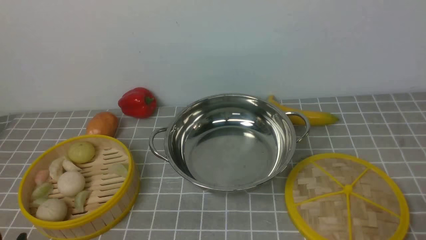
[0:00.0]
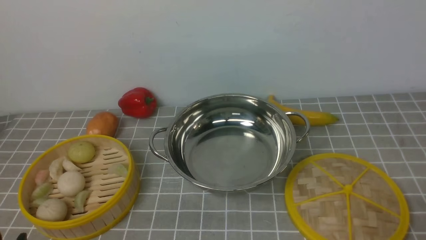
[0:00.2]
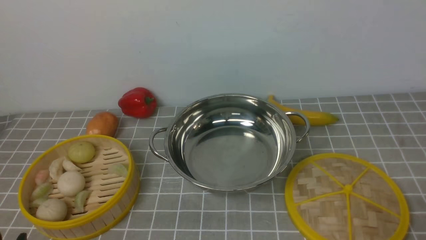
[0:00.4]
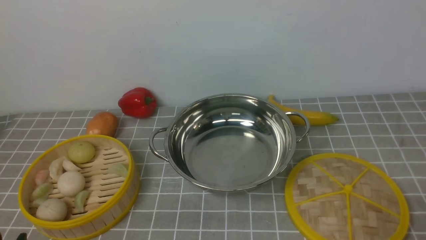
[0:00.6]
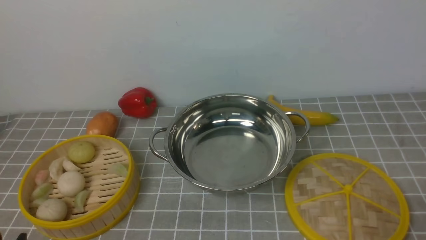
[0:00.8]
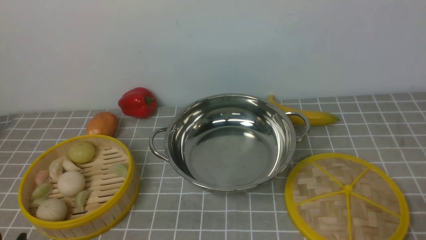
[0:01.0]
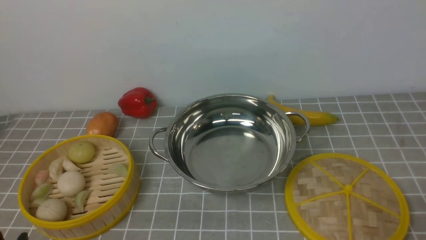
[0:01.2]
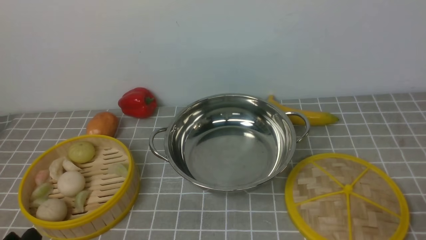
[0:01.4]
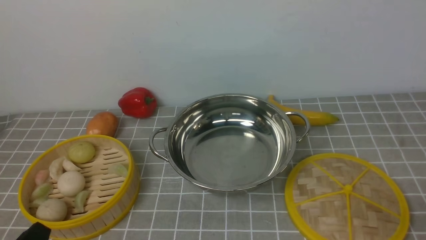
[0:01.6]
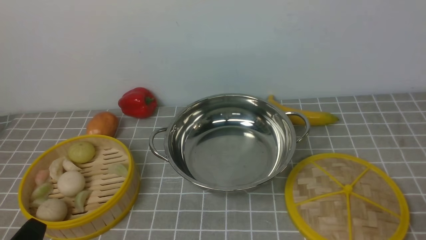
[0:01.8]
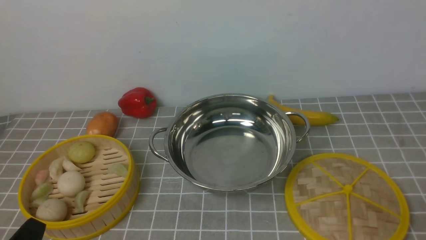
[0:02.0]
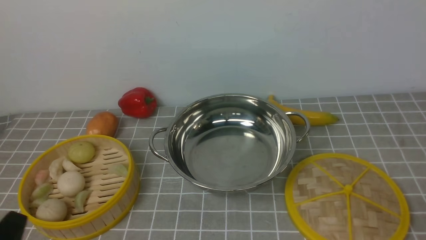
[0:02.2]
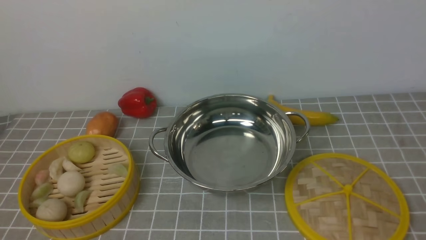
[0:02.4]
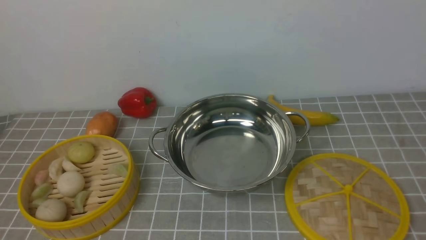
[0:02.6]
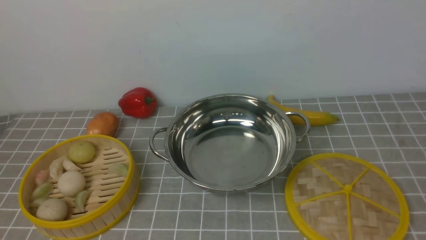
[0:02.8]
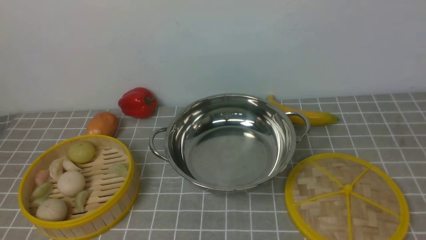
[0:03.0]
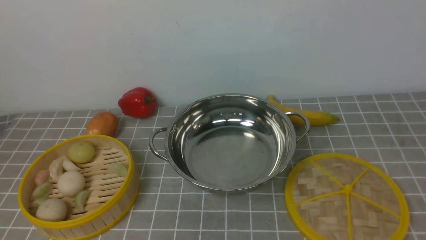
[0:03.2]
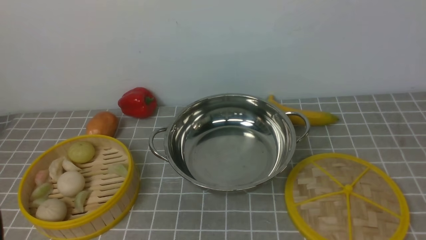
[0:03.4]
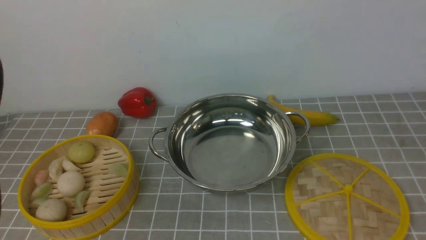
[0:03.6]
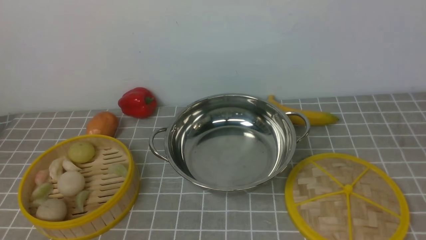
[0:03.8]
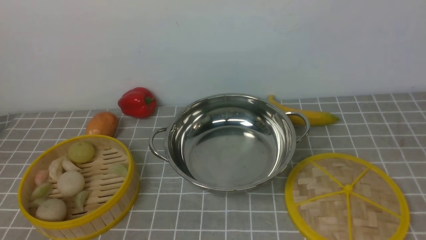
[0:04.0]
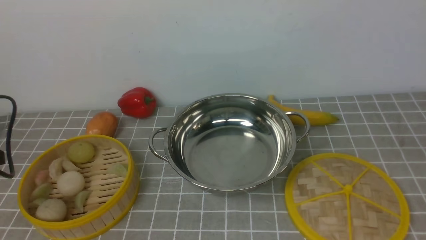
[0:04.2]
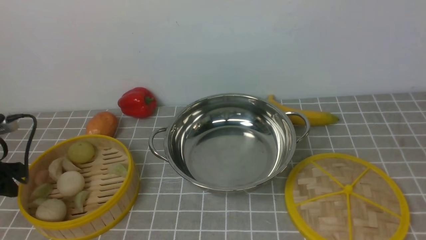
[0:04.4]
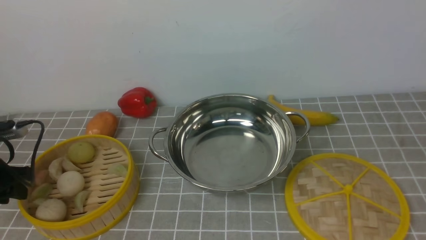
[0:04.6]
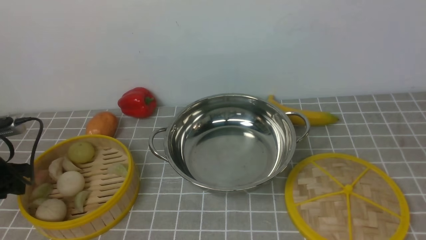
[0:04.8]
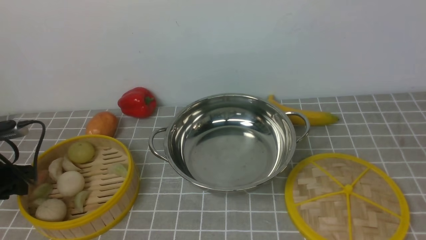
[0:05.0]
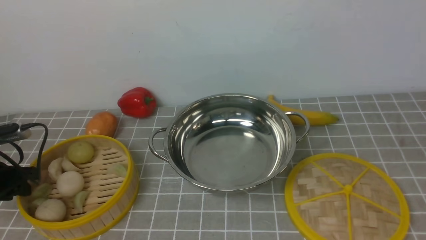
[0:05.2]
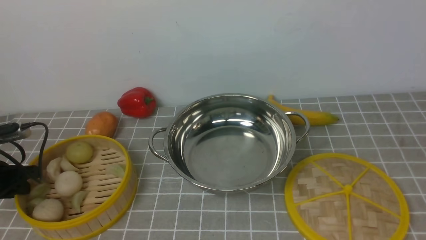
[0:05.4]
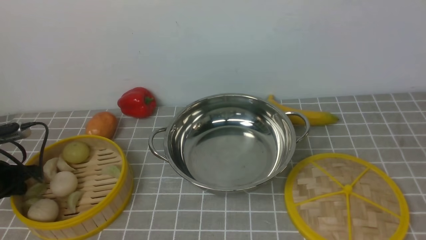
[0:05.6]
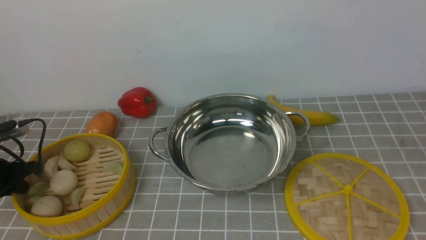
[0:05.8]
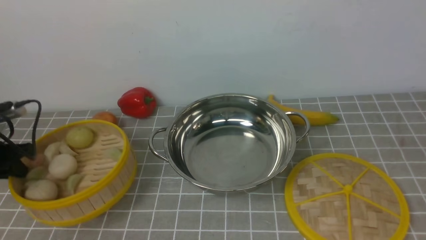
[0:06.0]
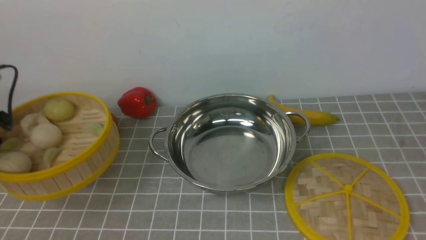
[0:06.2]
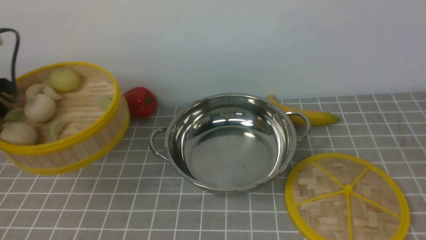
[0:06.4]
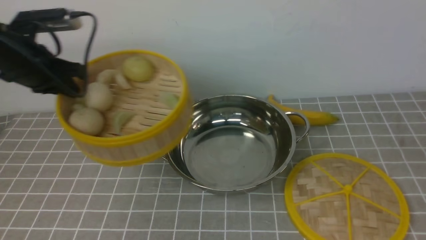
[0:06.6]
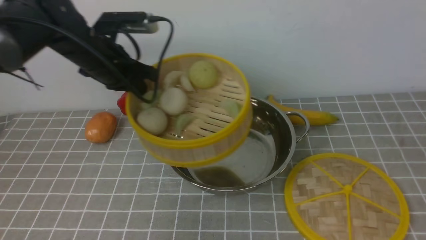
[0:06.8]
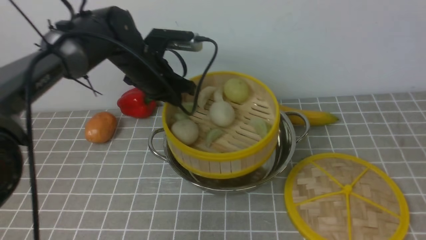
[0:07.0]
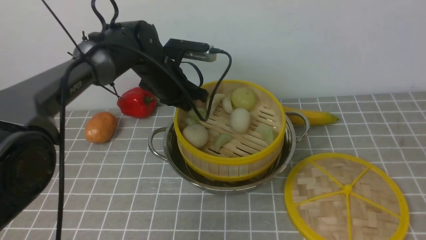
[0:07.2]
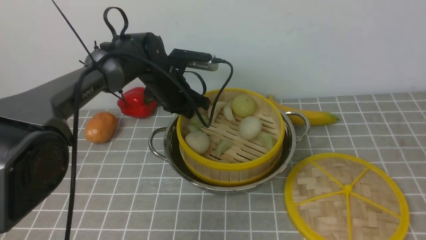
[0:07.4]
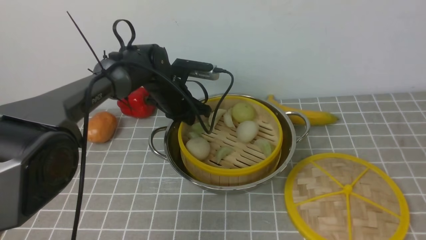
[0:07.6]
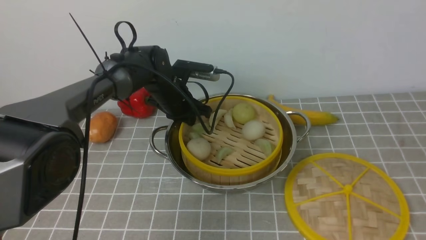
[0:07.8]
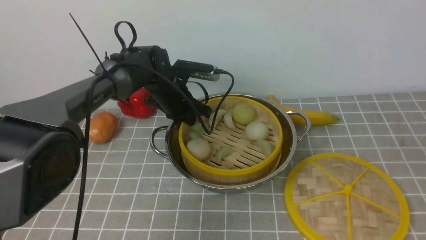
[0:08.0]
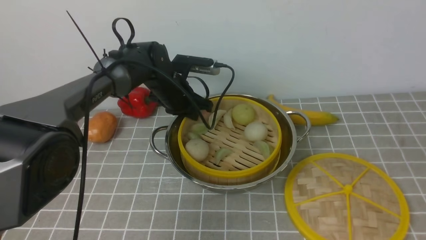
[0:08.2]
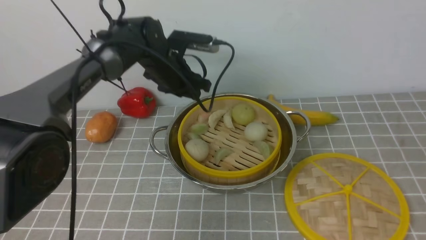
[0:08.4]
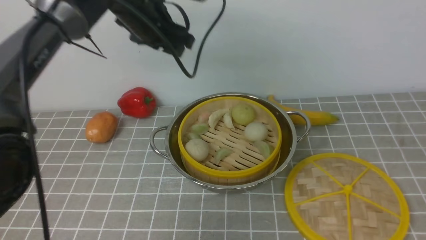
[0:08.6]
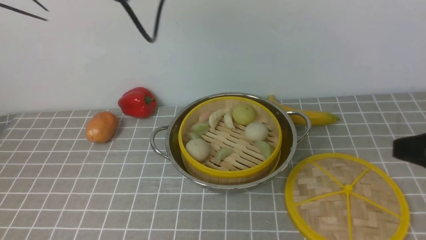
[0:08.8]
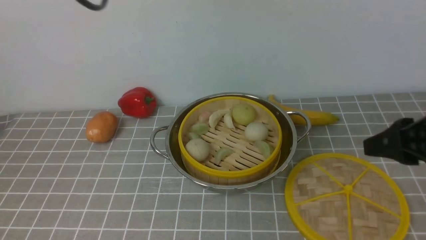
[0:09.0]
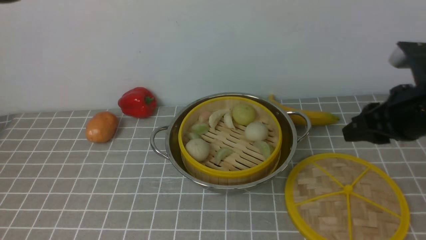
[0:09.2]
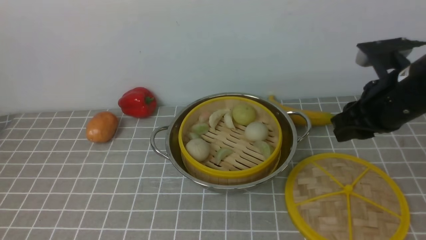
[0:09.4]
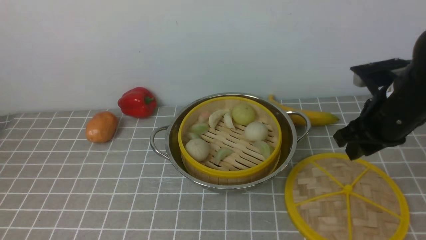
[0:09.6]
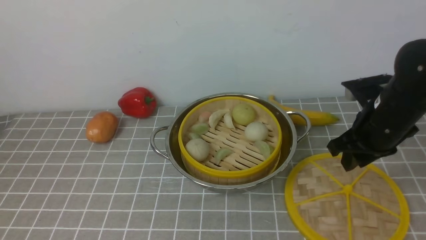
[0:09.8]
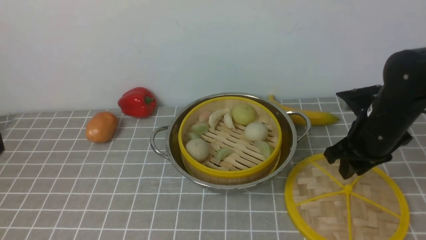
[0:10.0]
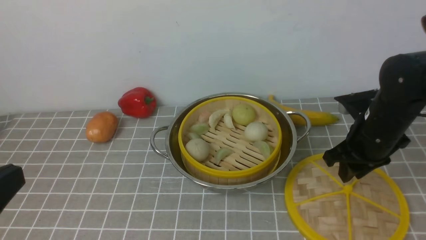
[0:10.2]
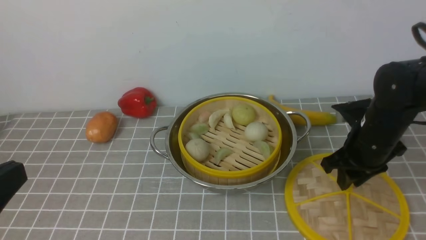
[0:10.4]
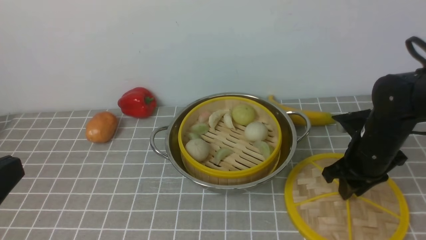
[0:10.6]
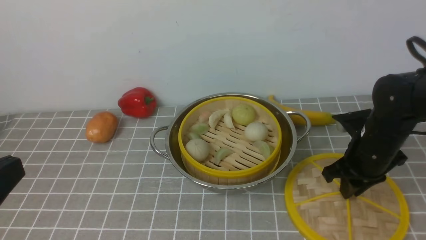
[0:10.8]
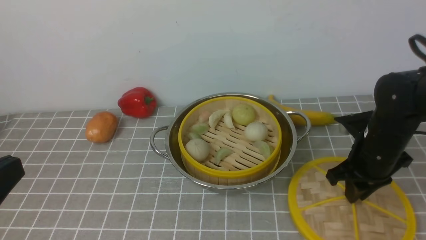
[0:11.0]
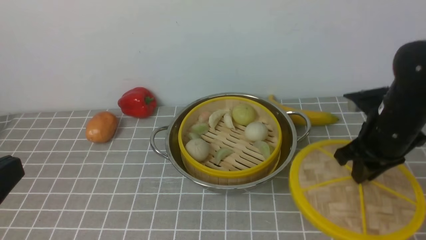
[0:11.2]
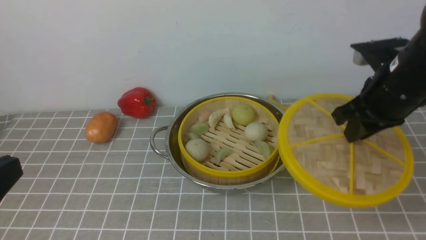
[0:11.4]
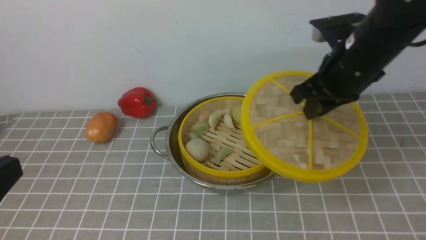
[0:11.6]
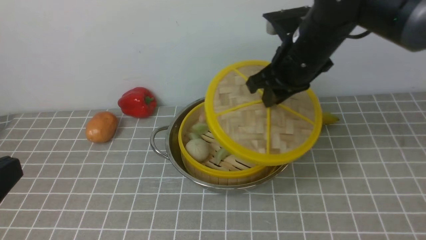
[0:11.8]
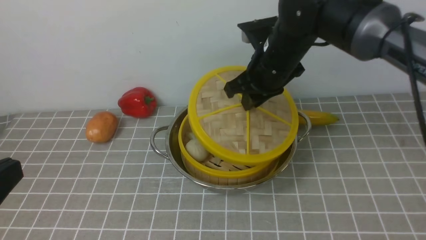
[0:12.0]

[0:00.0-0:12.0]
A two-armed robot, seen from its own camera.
Task of the whole recording: place the steamer in the pot on the grey tablecloth, and put the lid on the steamer.
Step, 0:00.0 to 0:05.8: use the left arm to lift the steamer closest to it.
Step, 0:06.0 to 0:08.2: use the left arm to put the steamer into the iron steamer pot in the middle.
Step, 0:08.4 to 0:11.0: use the right arm to lift the lid of the steamer.
0:03.0 to 0:04.4: The left gripper heads forward, downward and to the left, covering about 30 cm.
0:04.4 to 0:06.0: The left gripper goes some 5 cm forward, and closes up.
0:06.0 to 0:07.6: The left gripper goes roughly 35 cm to the right and forward.
0:07.6 to 0:09.0: The left gripper goes roughly 35 cm upward and backward, and opens, while the right gripper moves forward, approximately 10 cm.
0:09.0 to 0:10.4: The right gripper goes some 15 cm downward and forward; the left gripper heads backward and downward, covering some 30 cm, and closes its fingers.
0:10.4 to 0:12.0: The right gripper heads to the left, upward and forward, covering about 20 cm.

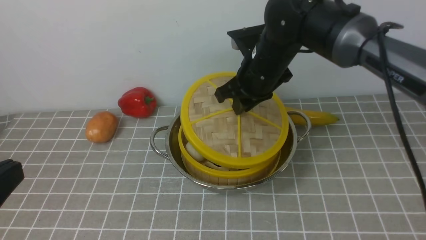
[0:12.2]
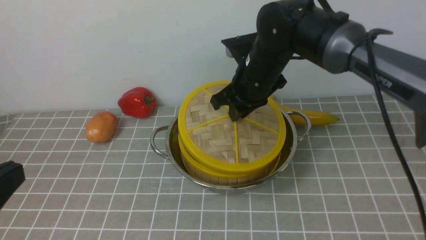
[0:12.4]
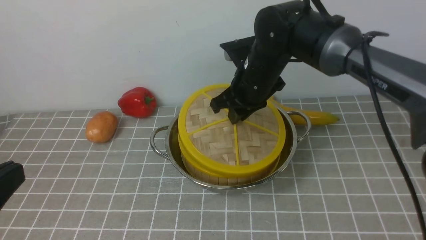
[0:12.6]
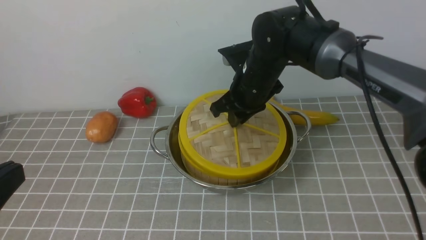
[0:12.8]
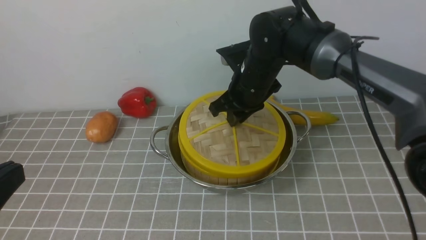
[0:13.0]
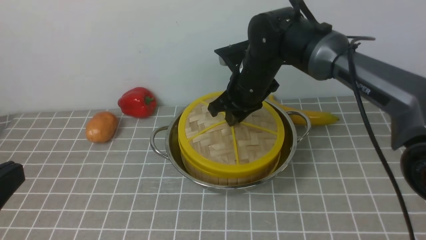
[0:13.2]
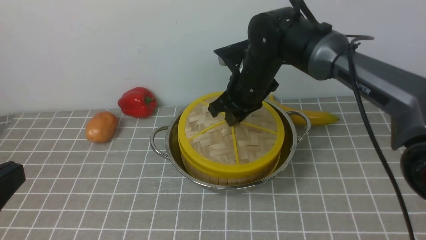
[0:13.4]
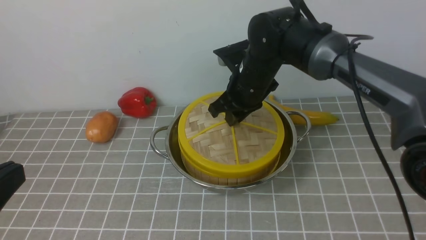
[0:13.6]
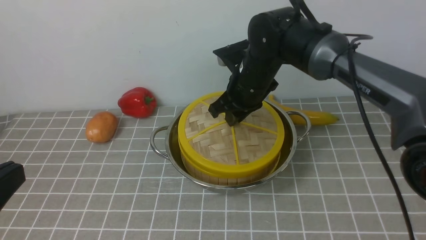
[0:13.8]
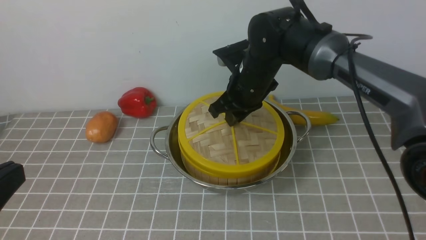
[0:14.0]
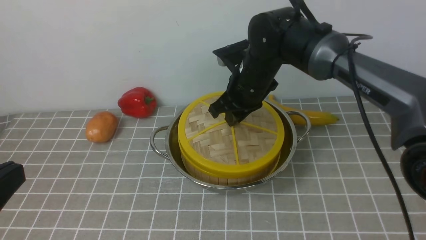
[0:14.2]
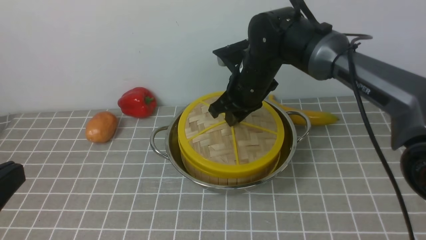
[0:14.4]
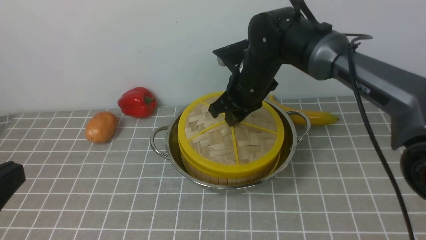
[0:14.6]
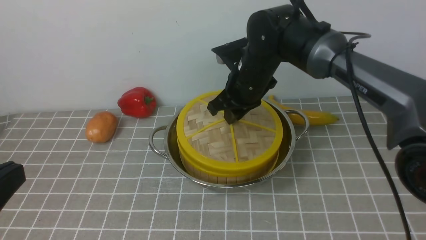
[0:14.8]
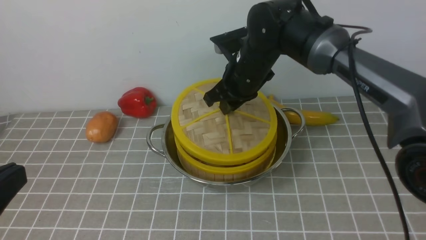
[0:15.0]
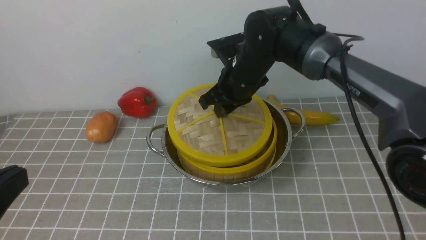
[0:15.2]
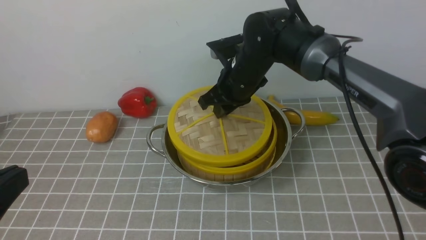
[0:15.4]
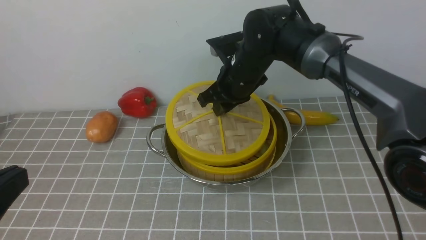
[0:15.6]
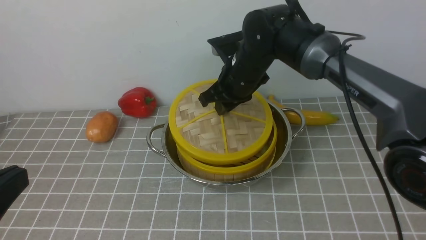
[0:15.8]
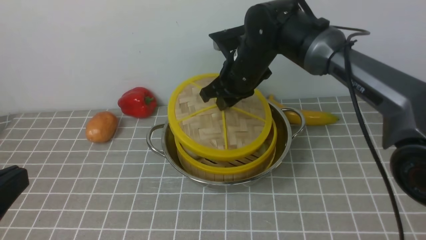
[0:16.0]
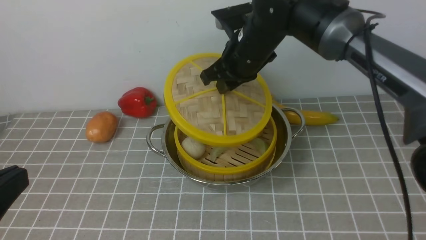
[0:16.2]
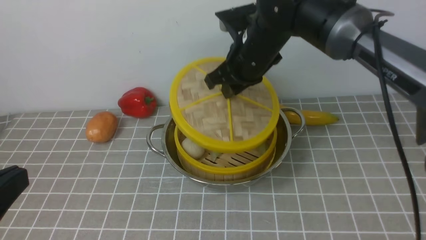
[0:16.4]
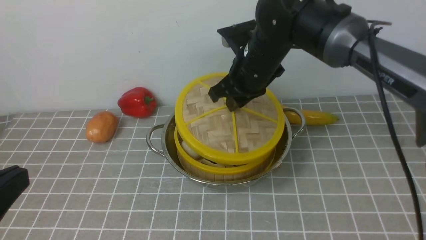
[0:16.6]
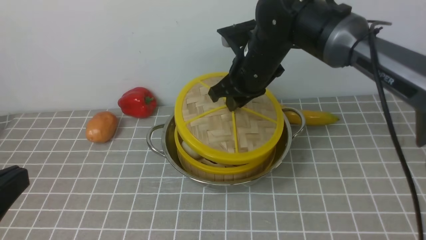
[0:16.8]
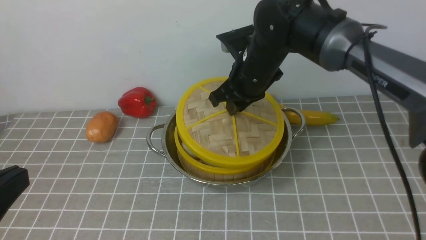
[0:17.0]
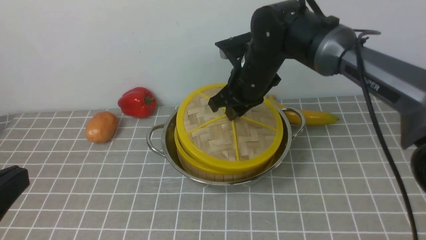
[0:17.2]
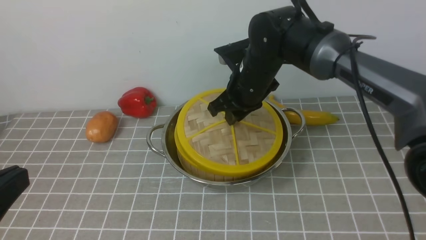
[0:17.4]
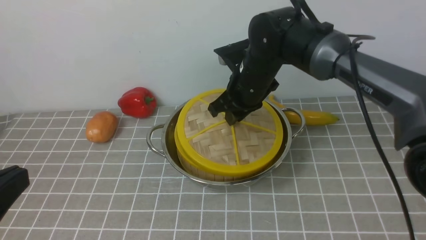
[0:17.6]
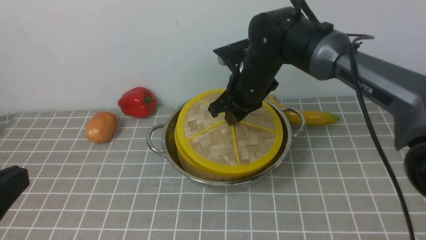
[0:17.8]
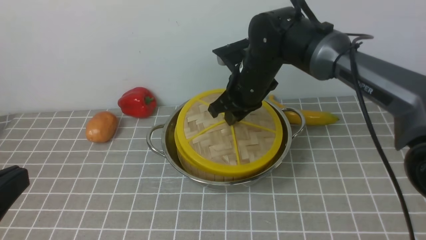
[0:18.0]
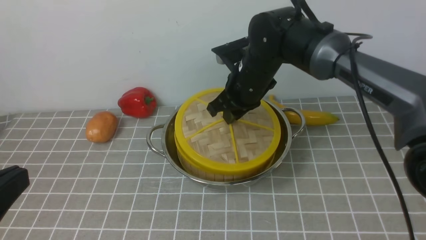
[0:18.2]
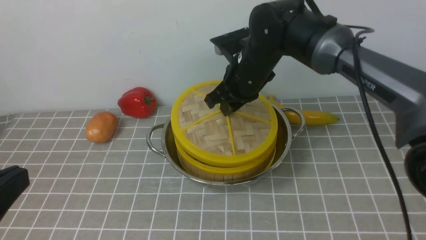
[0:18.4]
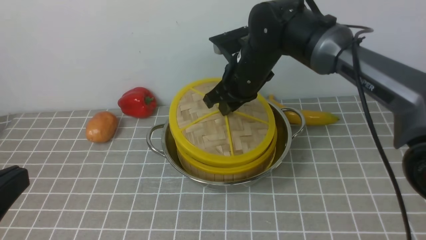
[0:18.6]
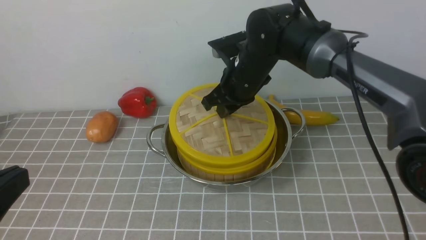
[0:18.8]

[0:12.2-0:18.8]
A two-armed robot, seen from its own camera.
Task of the whole recording: place the steamer in the pot on the grey tablecloth, and put the lid on the steamer.
0:12.2 to 0:17.2: The grippers move only a little.
0:17.2 to 0:18.8: The two grippers keep their place.
